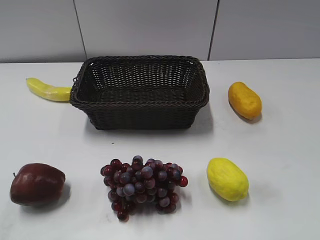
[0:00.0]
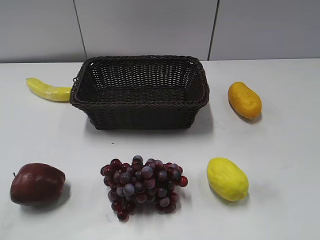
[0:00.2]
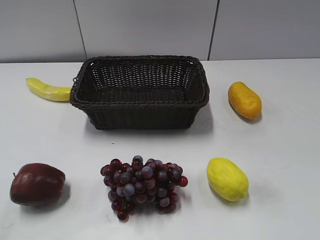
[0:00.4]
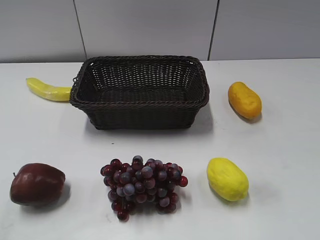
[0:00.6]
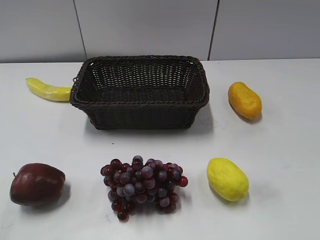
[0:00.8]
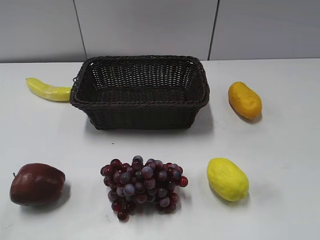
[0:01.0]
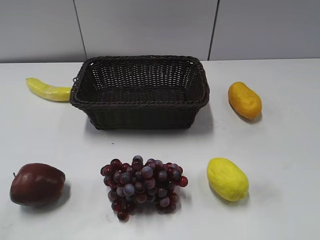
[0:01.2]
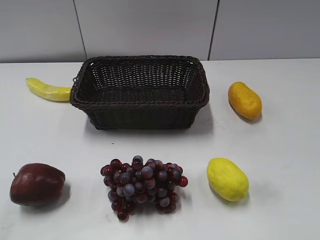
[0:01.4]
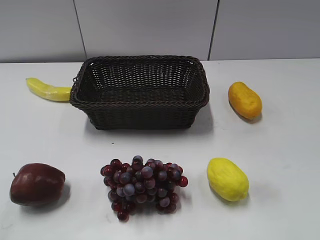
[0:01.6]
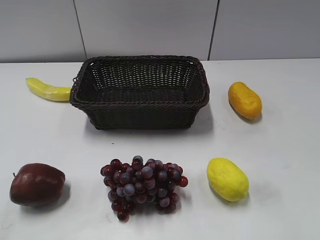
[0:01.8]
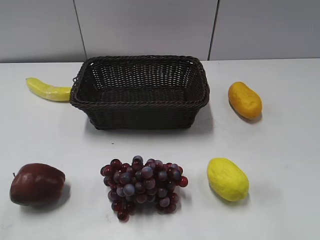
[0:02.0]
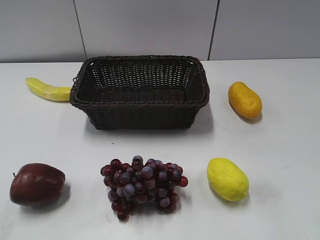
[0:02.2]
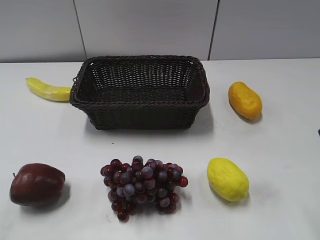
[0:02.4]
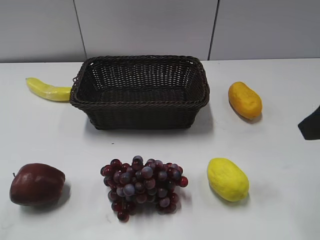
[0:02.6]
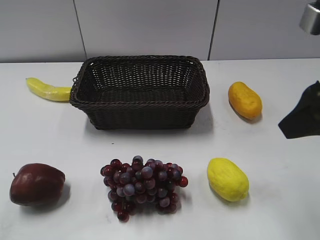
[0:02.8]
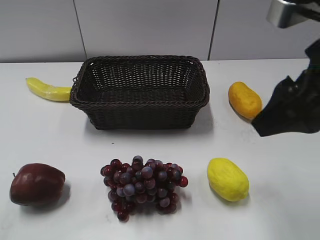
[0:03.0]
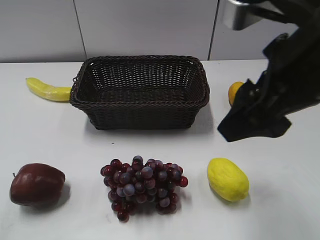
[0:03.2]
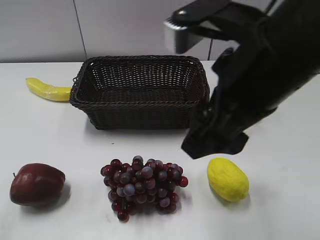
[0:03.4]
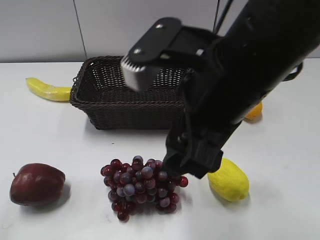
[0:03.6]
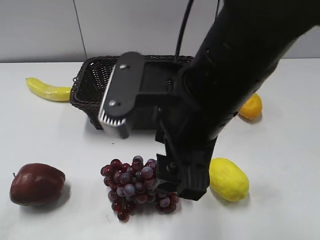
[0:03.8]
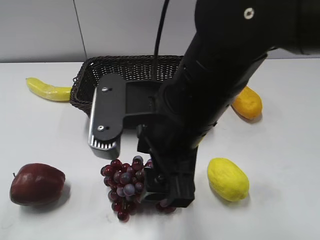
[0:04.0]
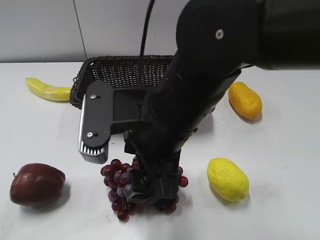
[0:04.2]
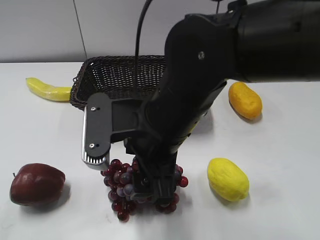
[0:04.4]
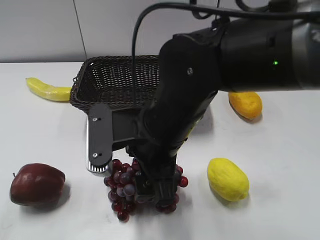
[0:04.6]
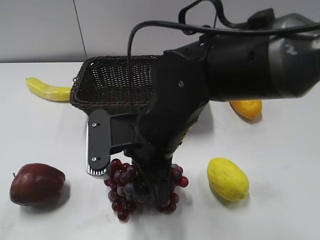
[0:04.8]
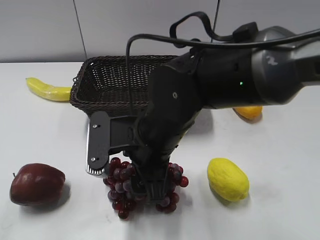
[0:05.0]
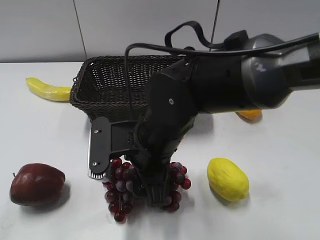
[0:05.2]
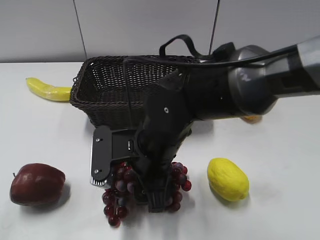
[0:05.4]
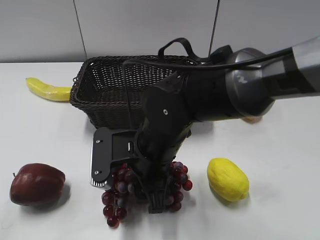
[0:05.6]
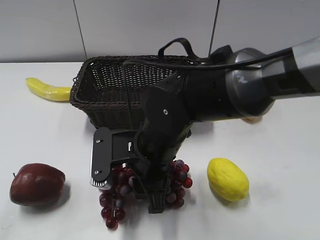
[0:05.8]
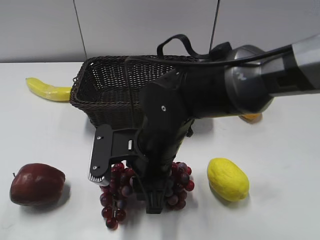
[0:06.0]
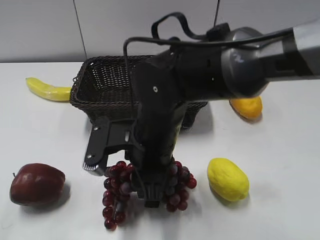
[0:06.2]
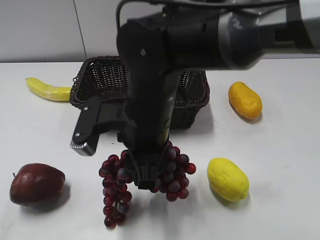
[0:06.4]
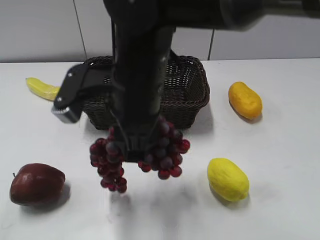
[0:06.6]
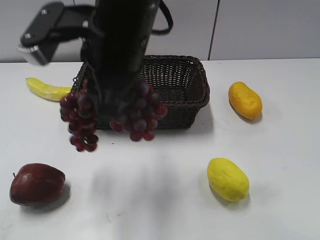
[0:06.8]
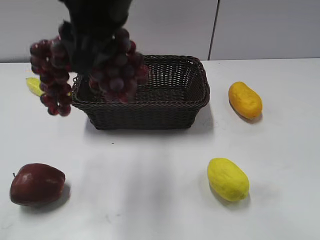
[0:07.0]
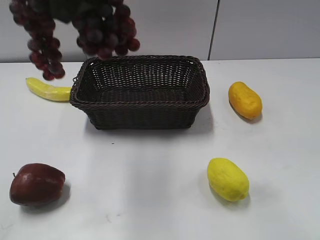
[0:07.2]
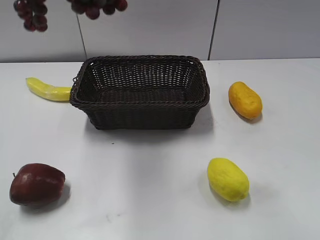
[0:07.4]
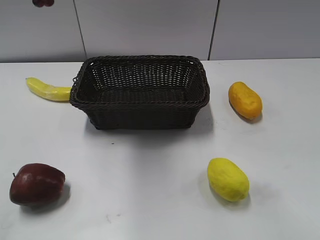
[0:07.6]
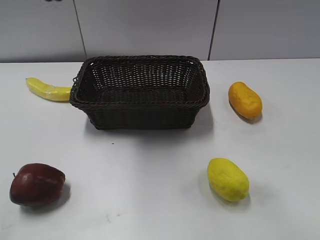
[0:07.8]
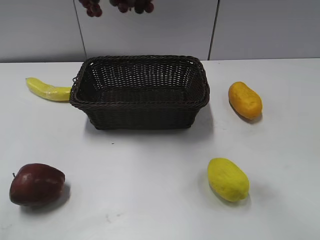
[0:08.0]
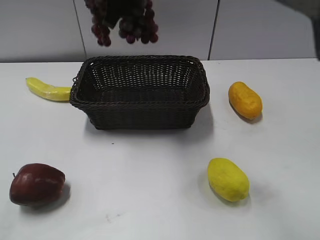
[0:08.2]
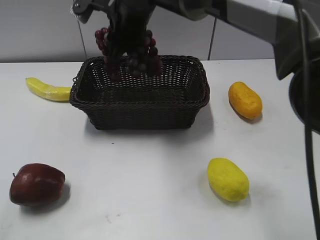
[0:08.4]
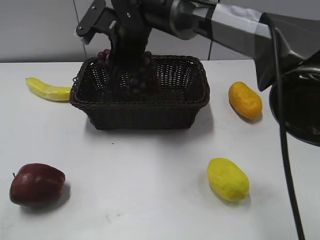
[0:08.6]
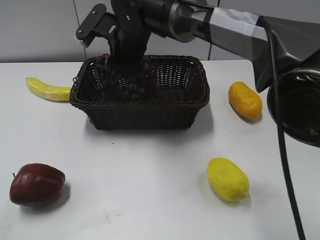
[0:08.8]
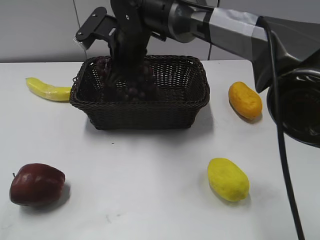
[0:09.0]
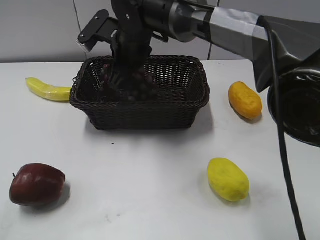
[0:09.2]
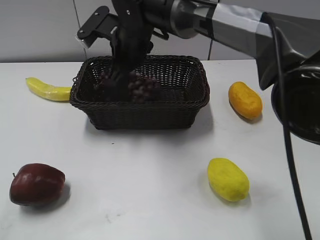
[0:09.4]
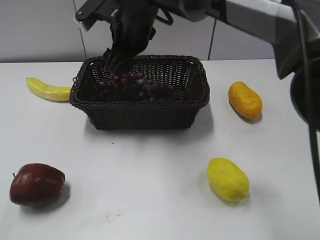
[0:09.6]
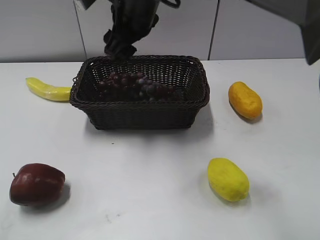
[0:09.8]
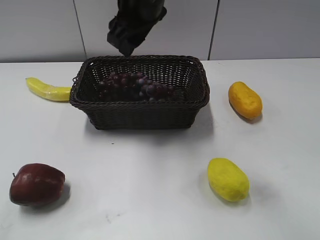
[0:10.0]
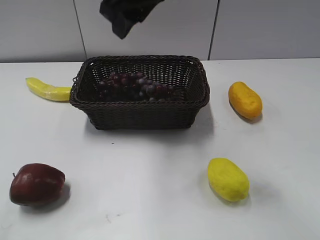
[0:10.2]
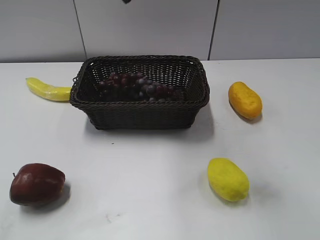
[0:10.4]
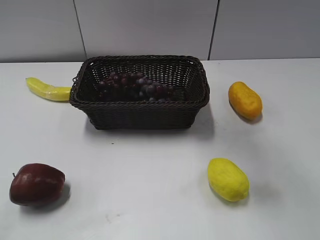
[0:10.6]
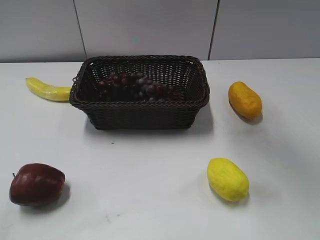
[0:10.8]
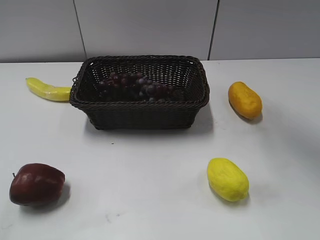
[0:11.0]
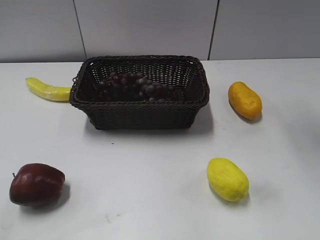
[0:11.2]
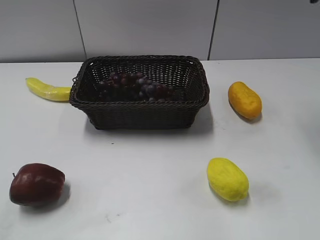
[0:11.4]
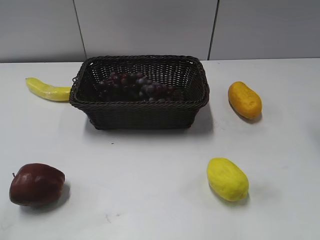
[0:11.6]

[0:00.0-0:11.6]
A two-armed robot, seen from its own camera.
Step, 0:02.4 to 0:06.4: Grasp the grape with right gripper.
Step, 0:06.6 to 0:09.6: Place the grape in the basket with right gripper.
0:01.4 to 0:02.8: The right gripper travels forward and to the left by roughly 20 cm.
0:02.8 to 0:04.4: The right gripper shifts some 25 cm to the left and downward.
0:04.4 to 0:05.8: The right gripper travels downward by about 5 cm, and closes its fingers.
0:05.8 to 0:07.2: The right gripper goes about 25 cm upward.
0:07.2 to 0:08.8: The right gripper is displaced downward and forward by approximately 25 cm.
0:08.8 to 0:10.2: The right gripper shifts about 15 cm upward and backward, and opens, then closes once more.
0:10.2 to 0:11.6: The right gripper heads to the right, covering about 30 cm, and opens.
